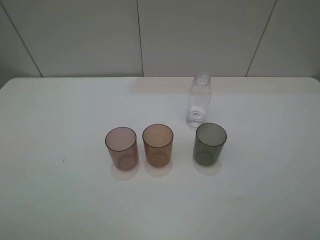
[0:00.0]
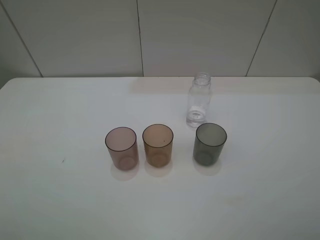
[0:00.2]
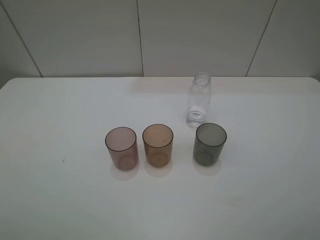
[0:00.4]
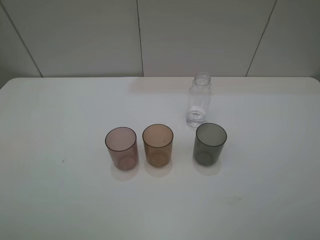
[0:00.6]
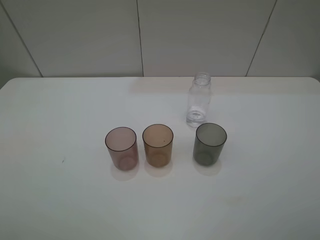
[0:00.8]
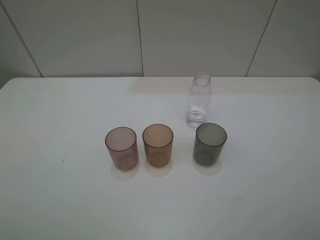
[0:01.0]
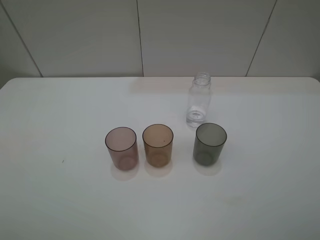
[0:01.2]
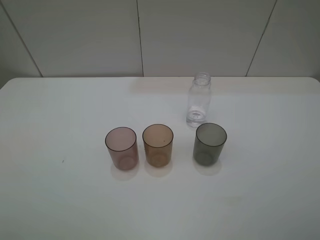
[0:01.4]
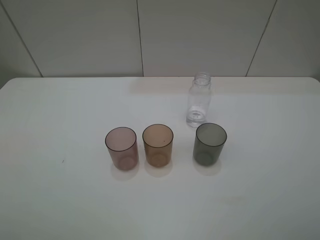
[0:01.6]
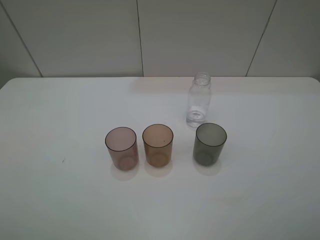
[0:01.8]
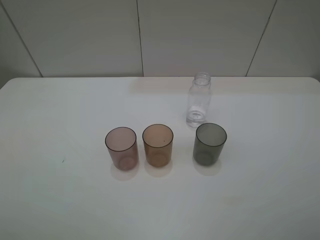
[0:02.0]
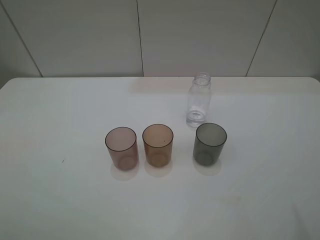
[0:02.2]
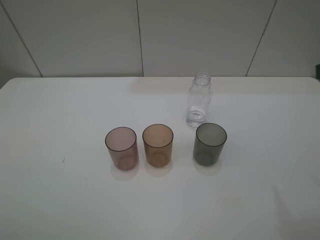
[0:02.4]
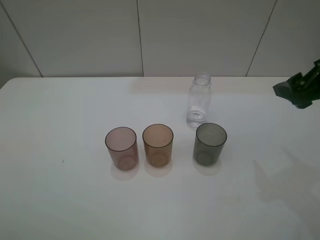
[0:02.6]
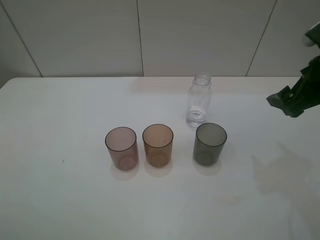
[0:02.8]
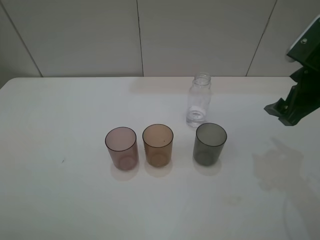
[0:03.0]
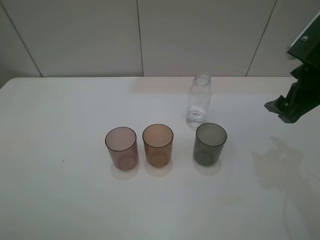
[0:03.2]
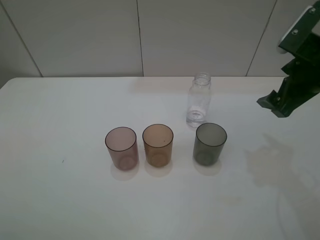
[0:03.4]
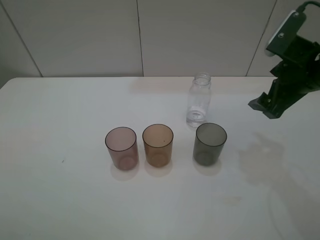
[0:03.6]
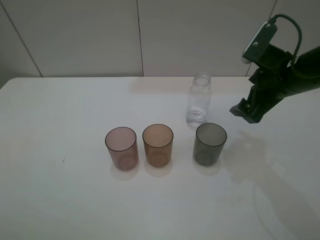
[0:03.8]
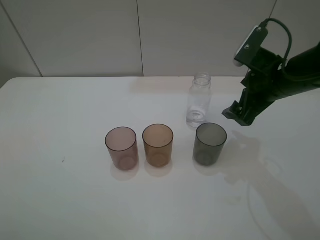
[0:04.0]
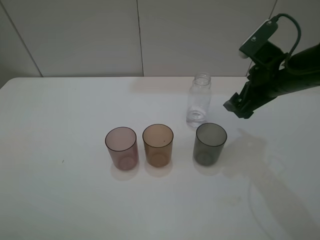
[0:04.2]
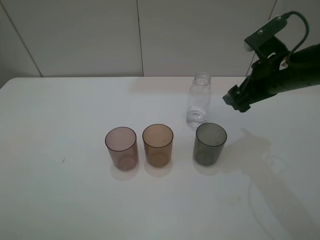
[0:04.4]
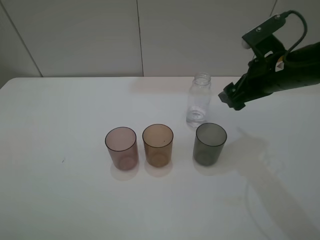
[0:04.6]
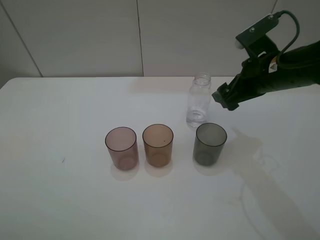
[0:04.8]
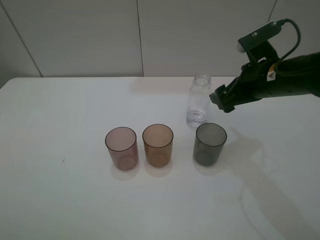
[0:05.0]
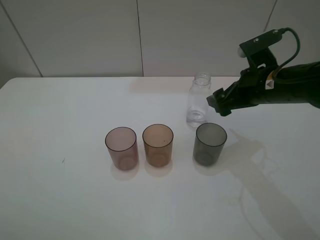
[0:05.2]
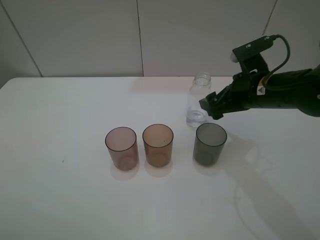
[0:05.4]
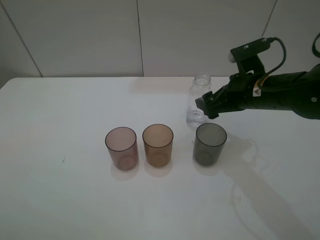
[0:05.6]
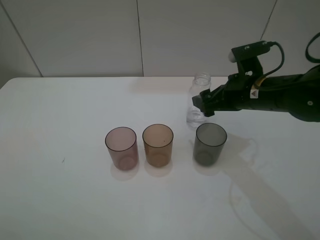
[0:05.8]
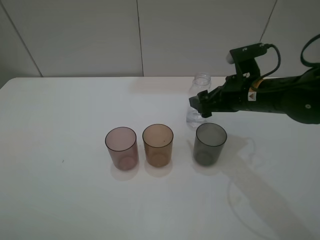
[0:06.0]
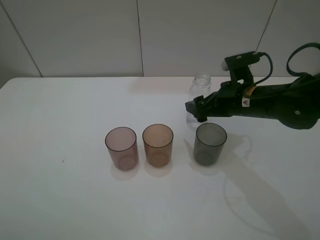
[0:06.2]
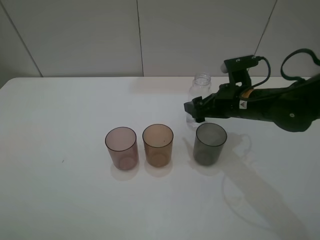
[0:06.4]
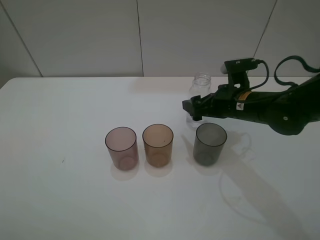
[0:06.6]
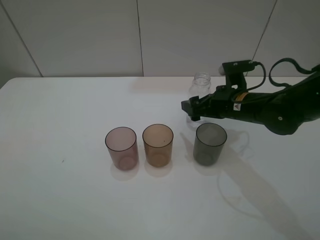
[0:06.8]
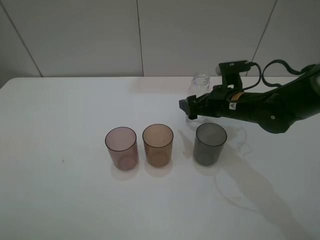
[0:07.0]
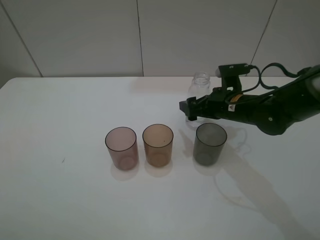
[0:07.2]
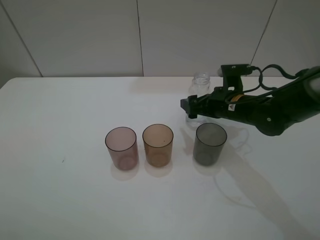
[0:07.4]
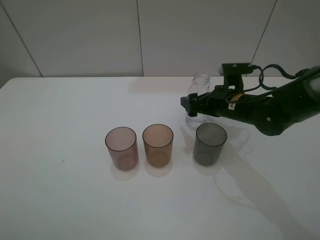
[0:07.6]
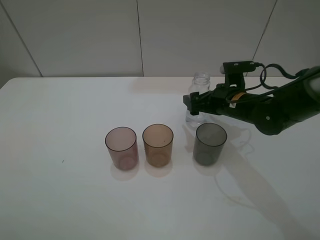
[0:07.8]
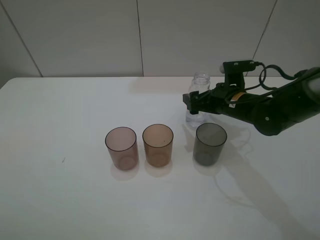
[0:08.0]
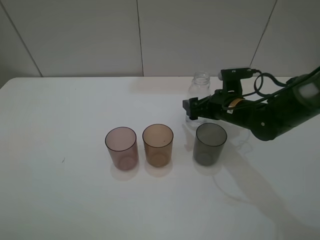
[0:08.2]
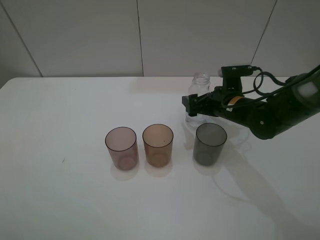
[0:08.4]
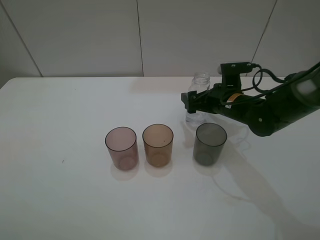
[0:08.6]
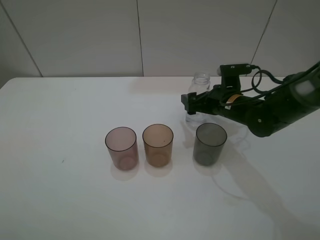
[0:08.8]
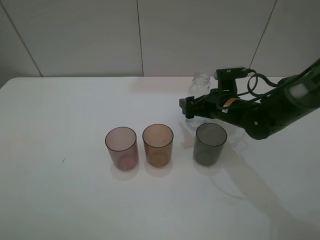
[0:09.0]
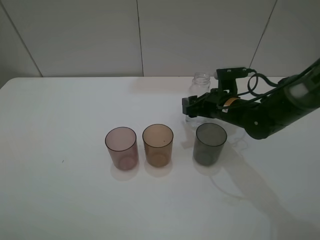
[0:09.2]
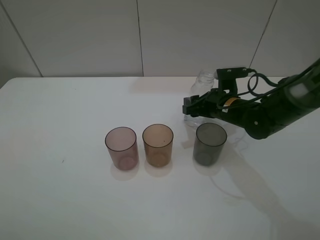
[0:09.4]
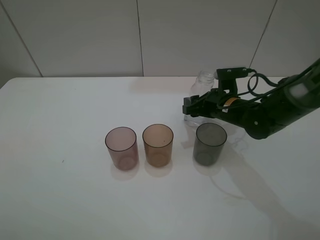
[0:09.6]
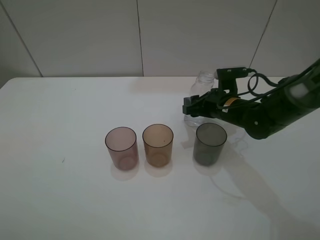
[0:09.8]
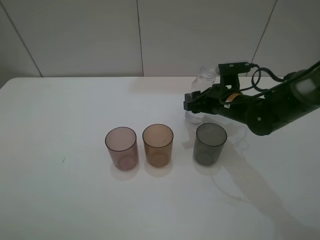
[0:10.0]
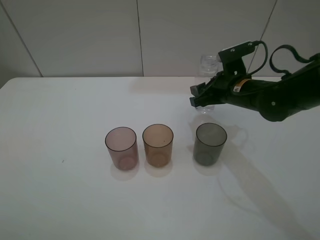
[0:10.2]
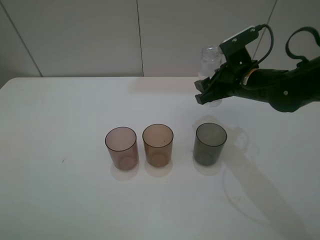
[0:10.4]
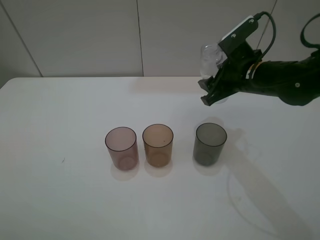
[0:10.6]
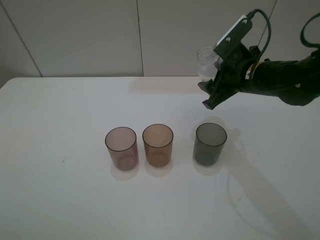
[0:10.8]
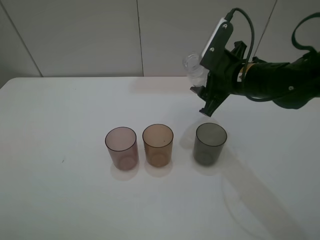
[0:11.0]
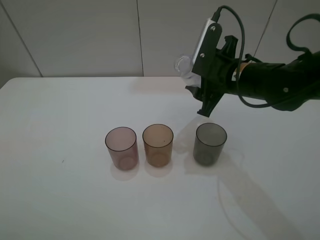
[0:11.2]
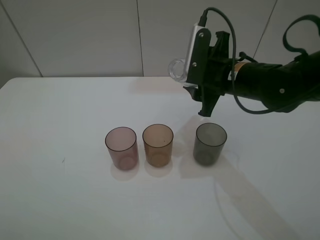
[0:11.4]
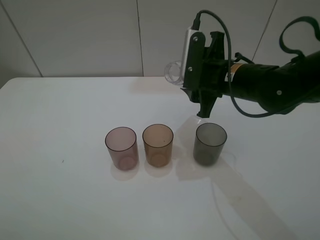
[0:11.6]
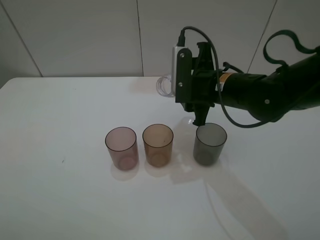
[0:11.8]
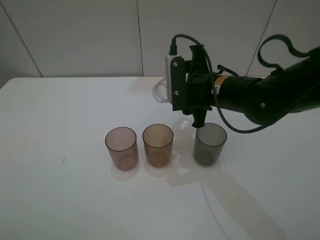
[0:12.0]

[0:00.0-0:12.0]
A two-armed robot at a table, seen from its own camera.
Task of the whole recording: pick up the bottle filled with water and pour water into the middle cup of the three cups.
Step, 0:00.0 to 0:09.2: Grasp the transparent bottle with the right gripper.
0:00.0 to 0:01.6: Both grippers stay put.
0:01.6 to 0:03.0: The right gripper moves forward, approximately 25 cm.
0:03.0 to 0:04.4: The right gripper heads to the left, covering about 5 cm.
0:04.4 to 0:06.0: The right gripper ends up approximately 5 cm from where it was.
0:06.0 to 0:07.6: The right gripper travels downward by about 5 cm.
0:07.6 to 0:09.0: There are only small adjustments of the grippers.
0:09.0 to 0:10.4: The right gripper is displaced upward by some 10 cm, and closes its fingers.
0:10.4 to 0:12.0: The right gripper travels to the left by about 5 cm.

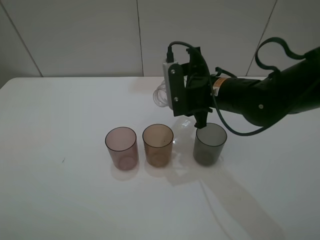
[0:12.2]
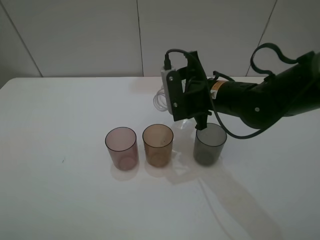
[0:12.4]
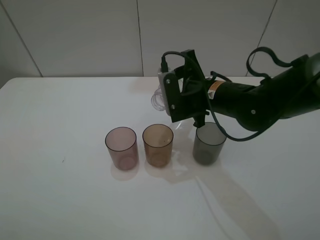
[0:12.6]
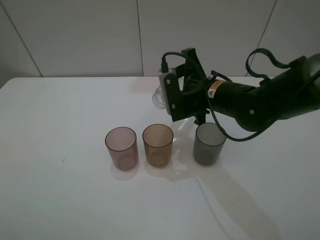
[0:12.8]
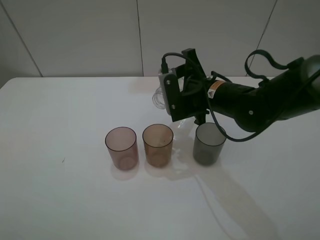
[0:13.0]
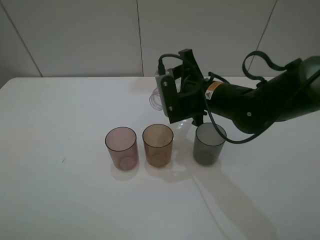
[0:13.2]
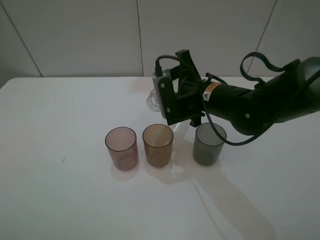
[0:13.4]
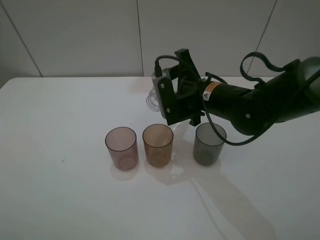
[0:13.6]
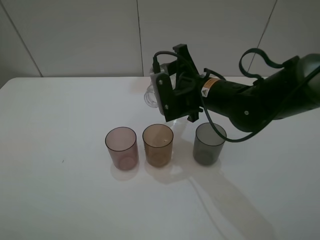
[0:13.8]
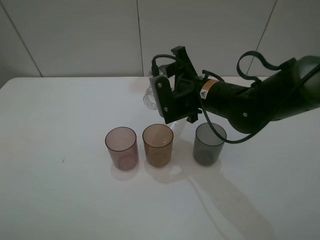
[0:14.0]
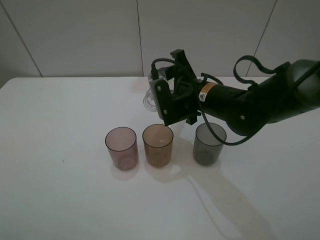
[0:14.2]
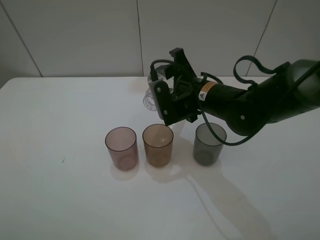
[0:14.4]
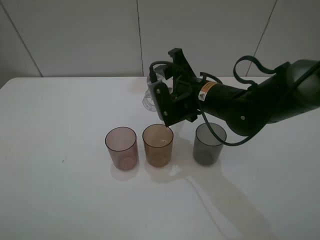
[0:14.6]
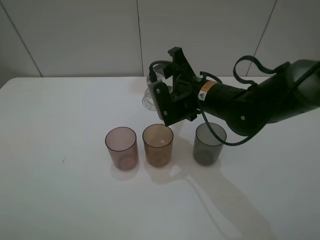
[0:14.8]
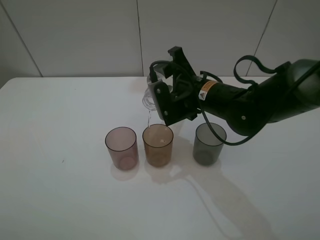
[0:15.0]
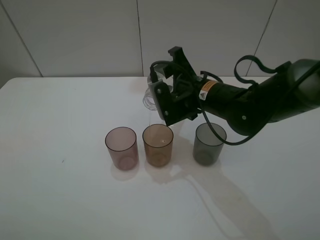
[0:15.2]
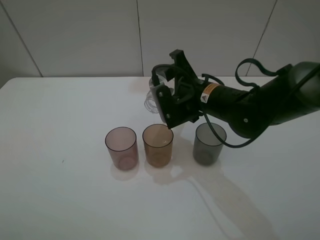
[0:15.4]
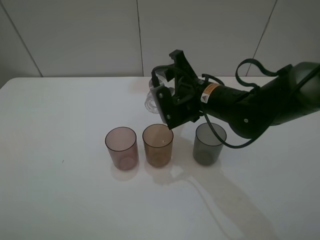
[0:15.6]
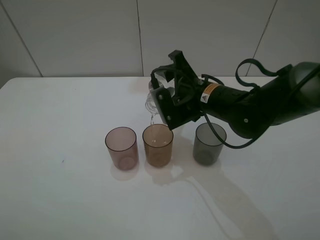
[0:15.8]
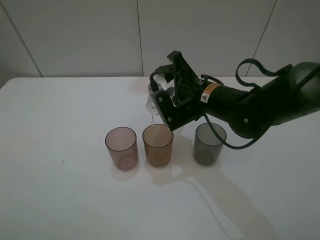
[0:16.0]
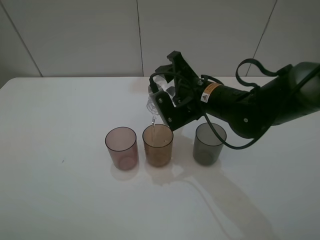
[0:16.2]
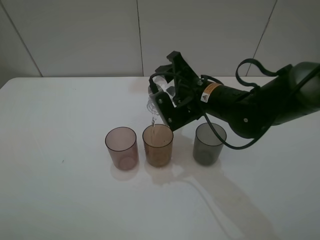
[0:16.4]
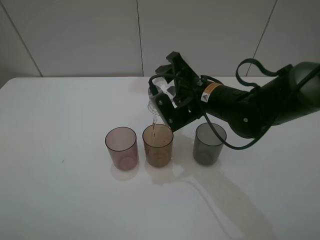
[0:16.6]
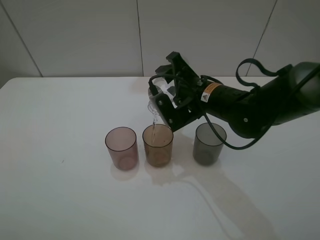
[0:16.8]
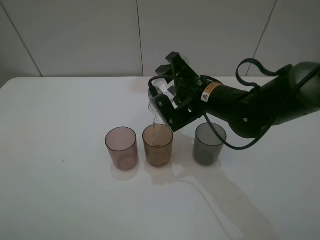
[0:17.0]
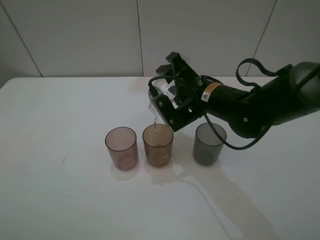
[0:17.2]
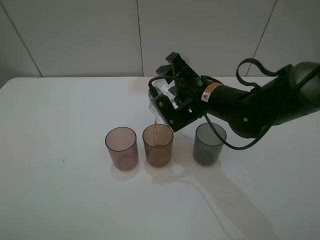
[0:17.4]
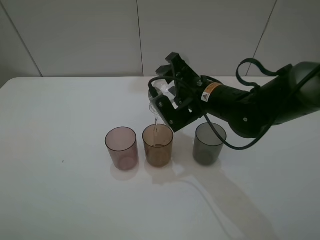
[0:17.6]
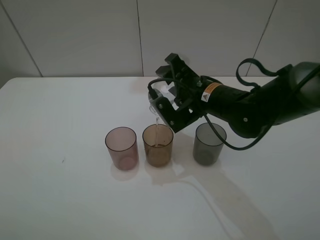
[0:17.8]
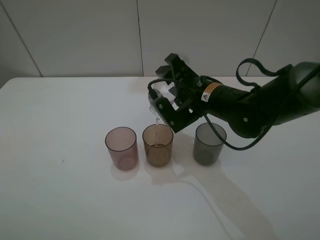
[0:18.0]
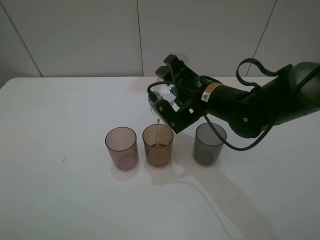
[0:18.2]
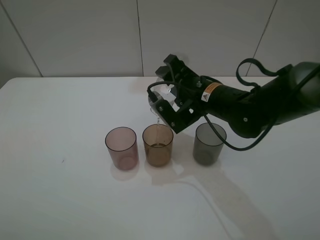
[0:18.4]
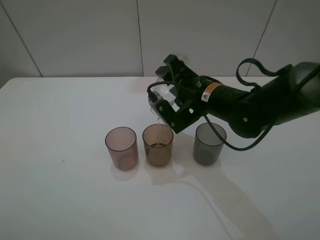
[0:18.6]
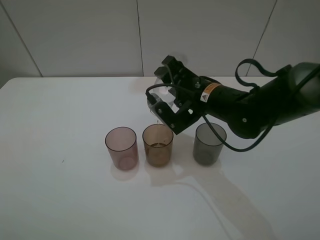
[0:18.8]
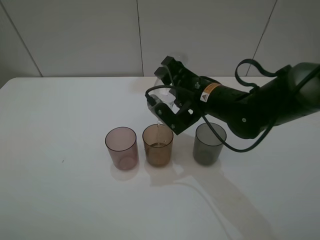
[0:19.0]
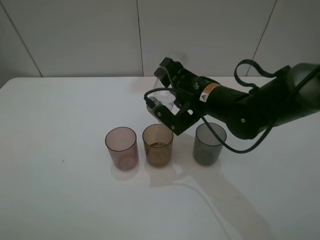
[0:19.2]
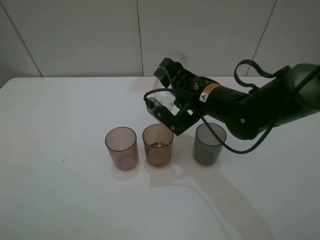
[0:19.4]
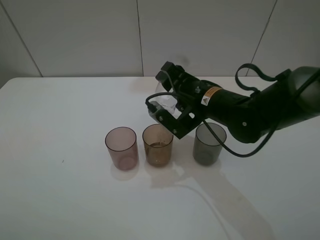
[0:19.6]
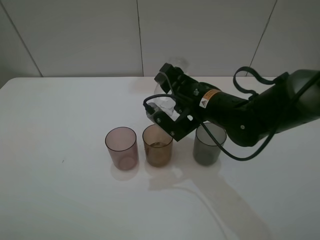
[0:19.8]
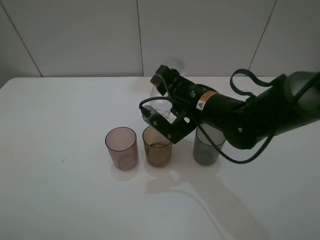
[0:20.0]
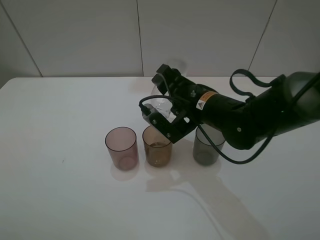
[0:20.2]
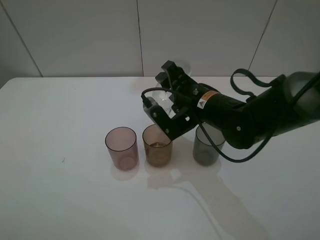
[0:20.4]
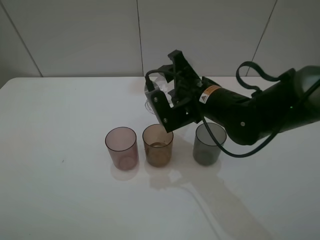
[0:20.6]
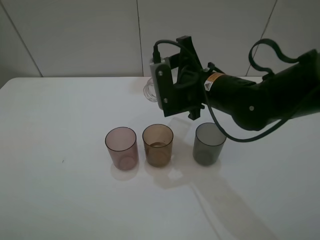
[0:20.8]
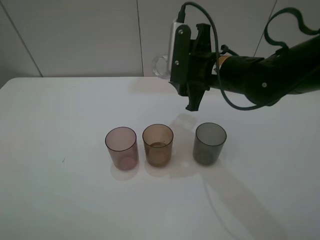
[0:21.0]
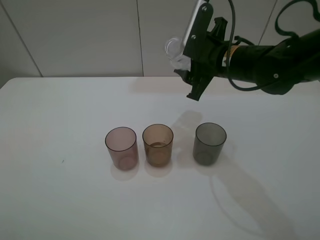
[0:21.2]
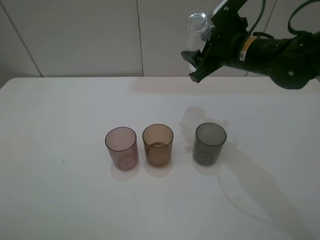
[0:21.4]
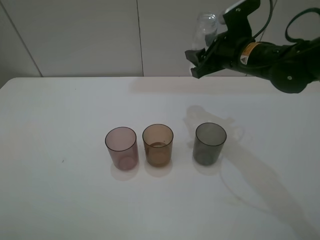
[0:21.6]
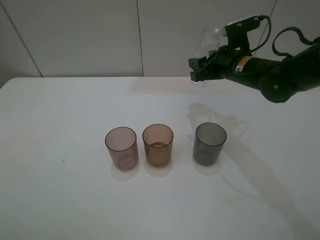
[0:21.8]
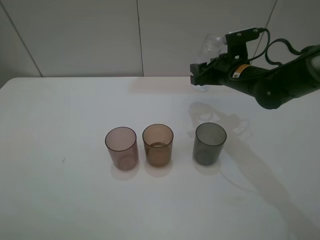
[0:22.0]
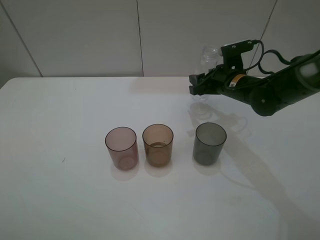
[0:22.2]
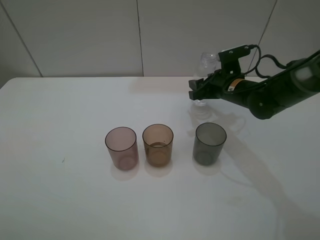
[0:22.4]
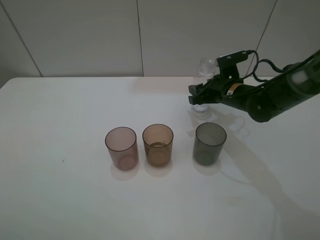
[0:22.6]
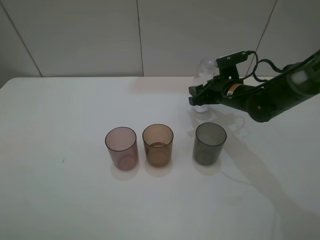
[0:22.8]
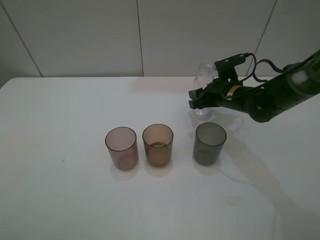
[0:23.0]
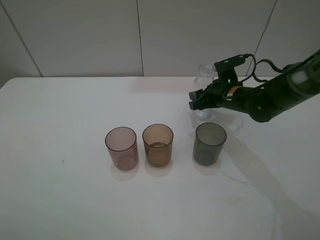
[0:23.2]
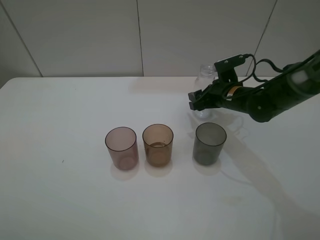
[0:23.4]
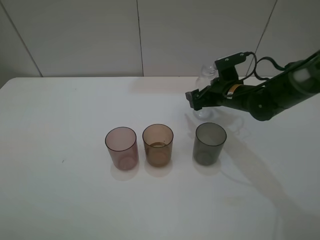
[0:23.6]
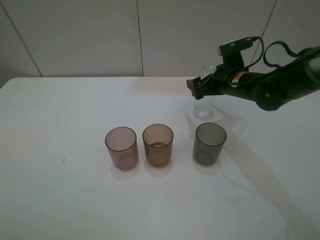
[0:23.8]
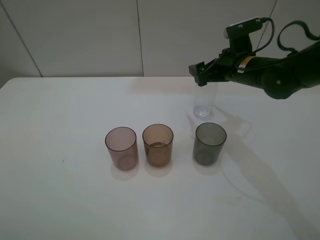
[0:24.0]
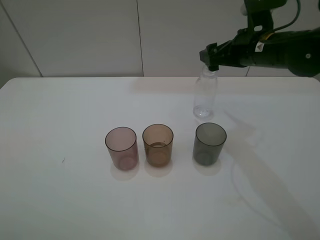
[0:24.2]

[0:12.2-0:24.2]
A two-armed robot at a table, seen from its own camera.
Task of the whole recording: pick up the bottle filled with water and pour water into the middle cup of the three cups.
Step, 0:12.2 to 0:15.2: Pour water from transparent bottle to red cup with the right gripper.
0:12.2 to 0:15.2: The grippers make only small movements.
0:15.2 to 0:18.2: The grippers make only small movements.
0:18.2 to 0:19.8: The grippers make only small movements.
0:19.8 to 0:21.2: The right gripper is displaced upward by approximately 5 cm.
0:21.2 to 0:22.6: The right gripper shifts approximately 10 cm downward.
0:22.6 to 0:24.2: The right gripper shifts roughly 15 cm upward, and opens.
